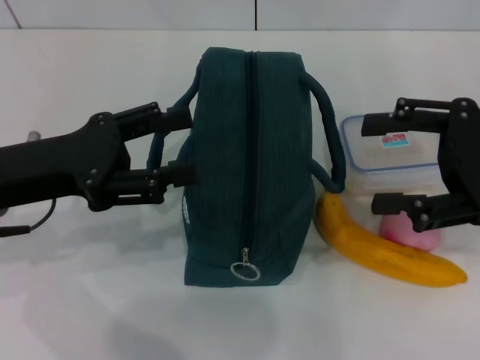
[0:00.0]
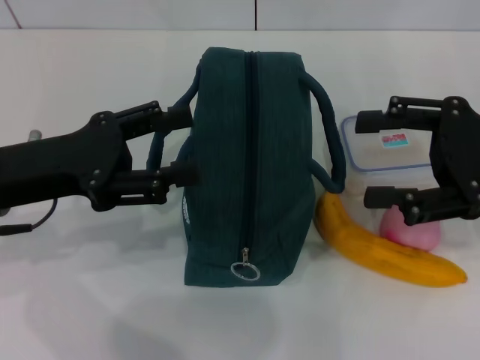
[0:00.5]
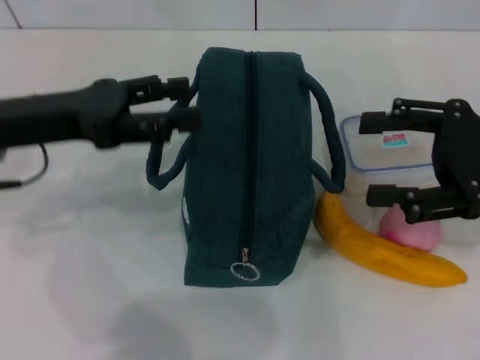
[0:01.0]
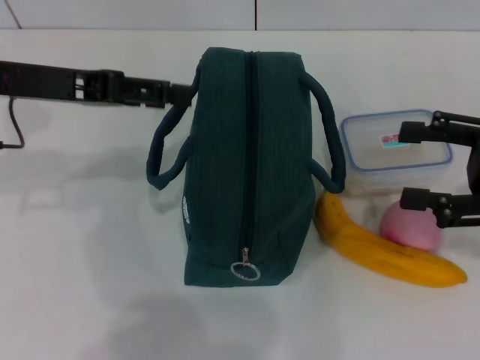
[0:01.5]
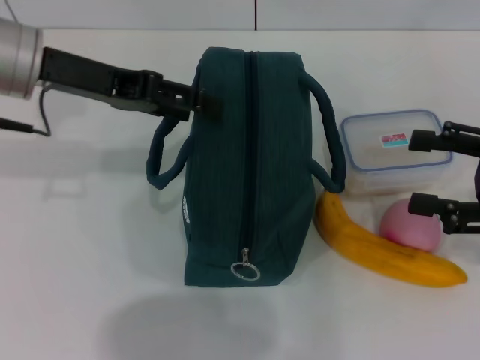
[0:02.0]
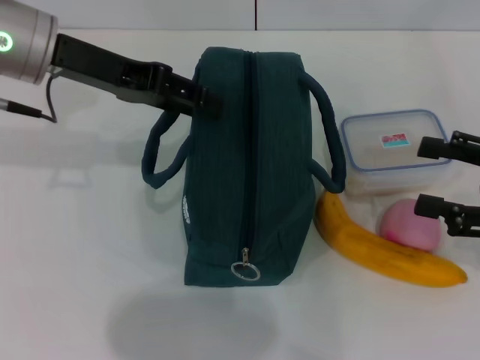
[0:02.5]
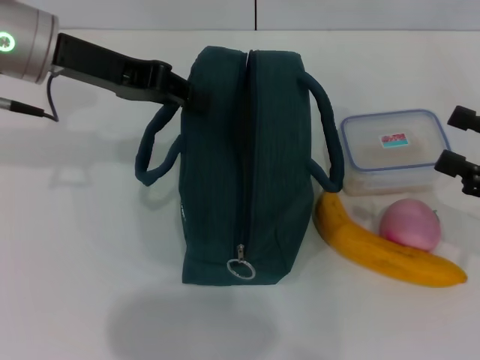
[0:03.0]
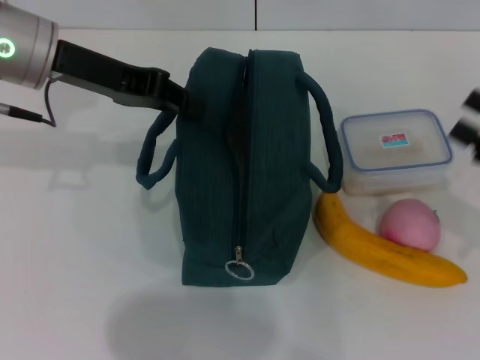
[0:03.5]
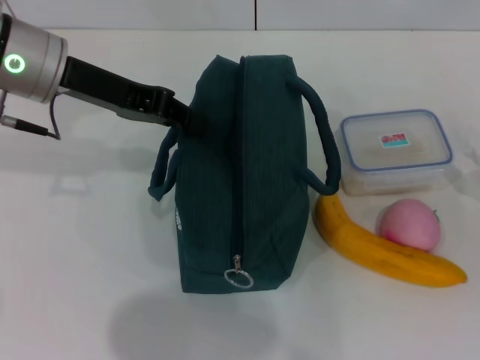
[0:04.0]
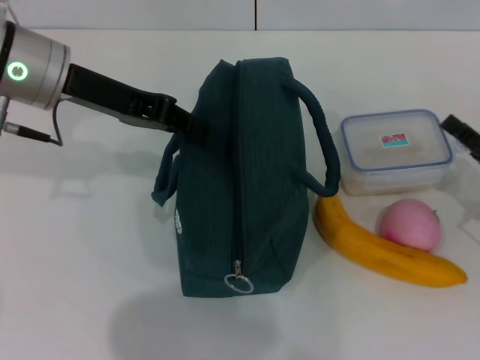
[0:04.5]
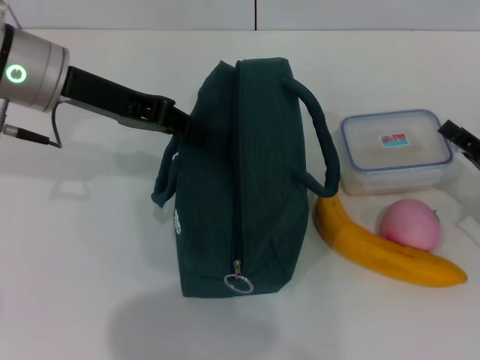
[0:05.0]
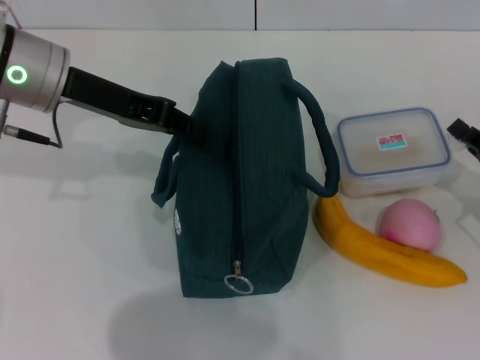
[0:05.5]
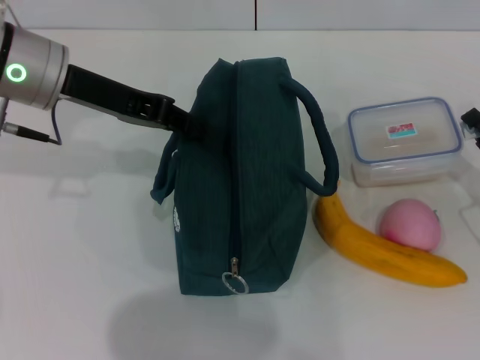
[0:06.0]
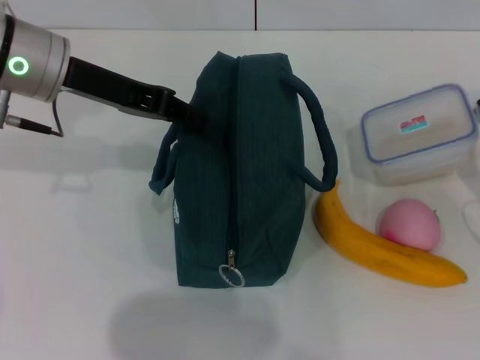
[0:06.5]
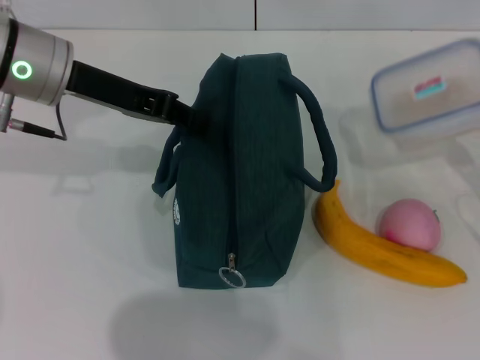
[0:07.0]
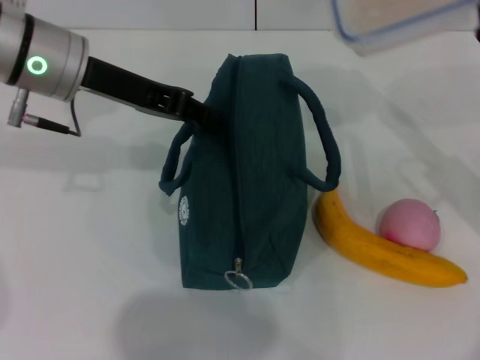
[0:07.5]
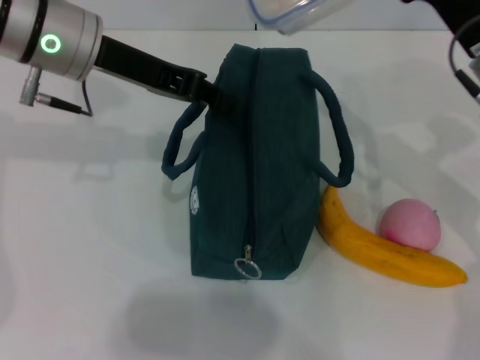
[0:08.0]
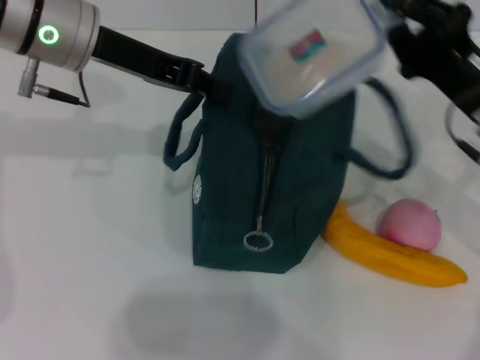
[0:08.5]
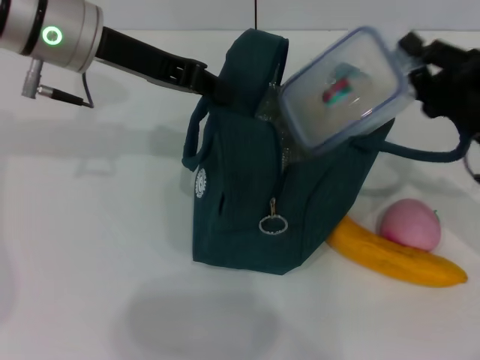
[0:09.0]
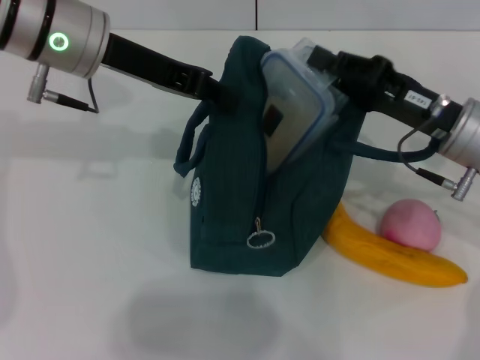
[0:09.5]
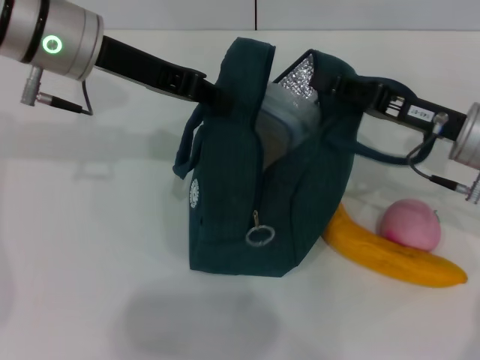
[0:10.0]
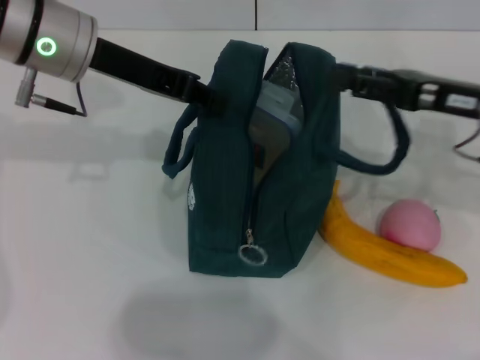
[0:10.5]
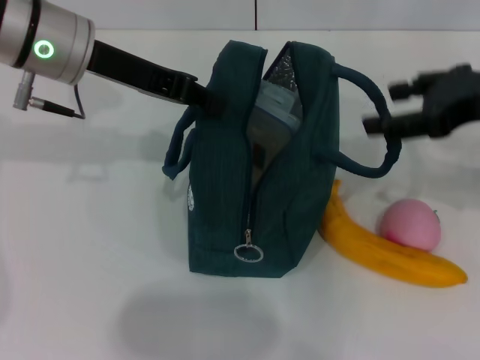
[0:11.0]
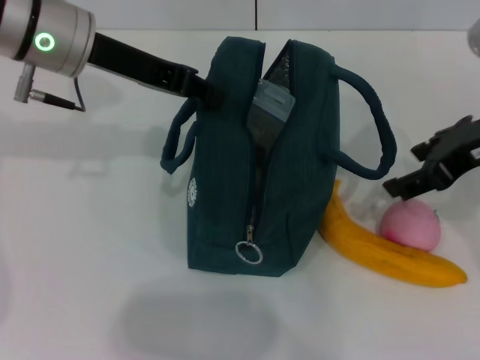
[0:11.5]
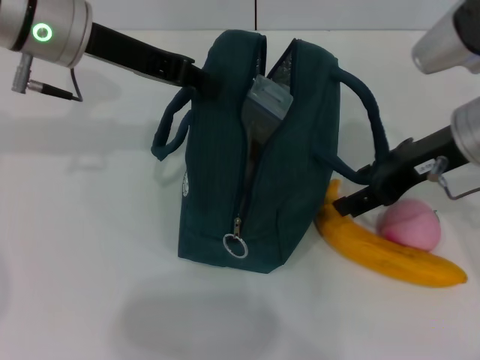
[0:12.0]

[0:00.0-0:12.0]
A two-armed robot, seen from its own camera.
Step, 0:00.0 to 0:03.5: Hold the lunch bag with your left hand.
Step, 0:04.0 to 0:05.5: Pick up the lunch box with your right hand.
Step, 0:06.0 to 0:10.0: Place the lunch box into the lunch bag with your right hand.
0:00.0 to 0:02.0: The left gripper is displaced forward and upward by about 10 cm. The right gripper moves roughly 5 cm.
0:02.0 to 0:04.0: The right gripper moves downward, some 10 cm. The left gripper closes.
0:04.0 to 0:06.0: The right gripper closes.
0:06.0 to 0:08.0: The right gripper goes approximately 20 cm upward, to the left and forward.
0:10.0 to 0:12.0: The right gripper shifts about 10 cm upward, and opens up.

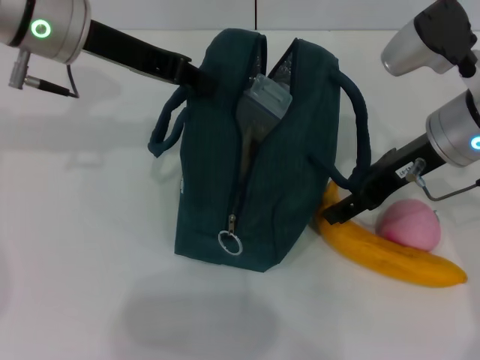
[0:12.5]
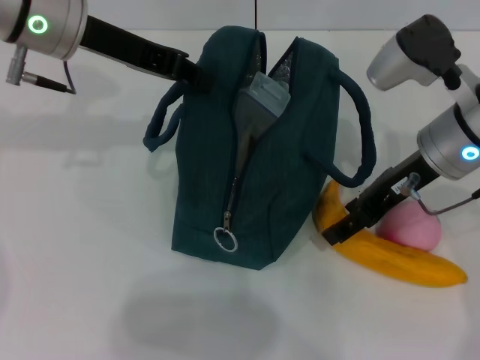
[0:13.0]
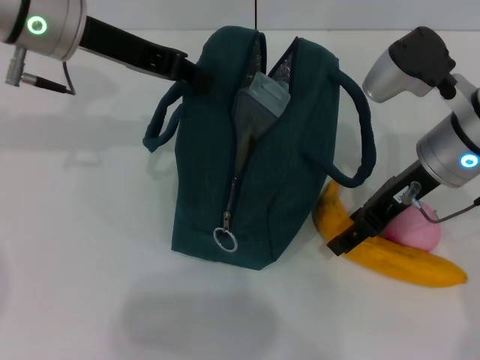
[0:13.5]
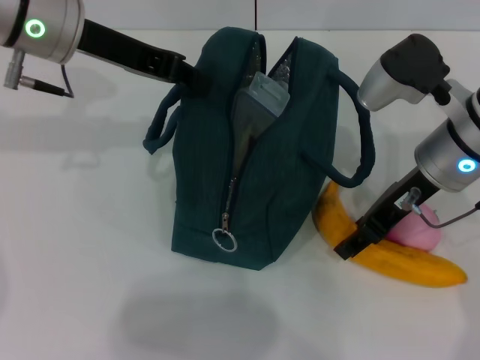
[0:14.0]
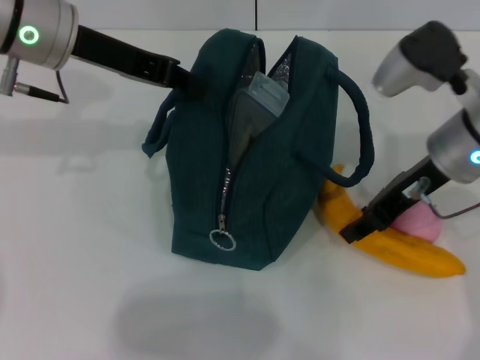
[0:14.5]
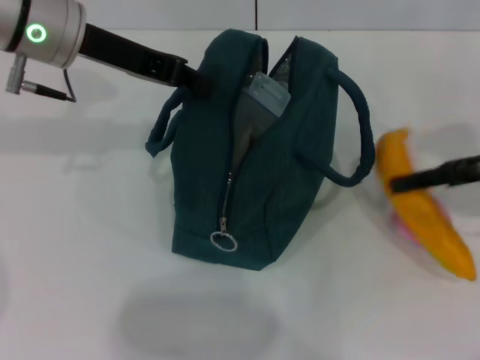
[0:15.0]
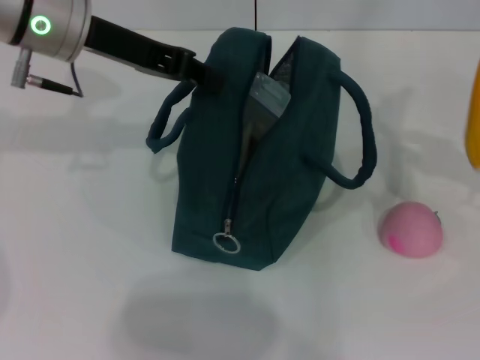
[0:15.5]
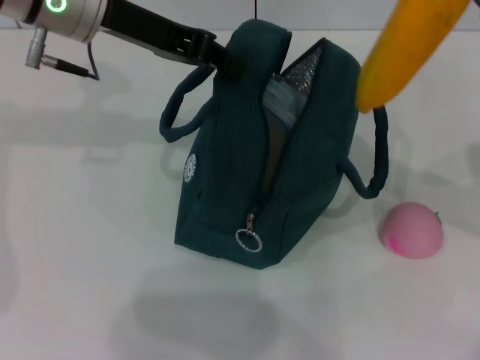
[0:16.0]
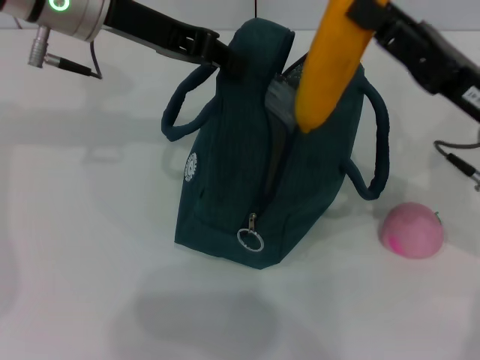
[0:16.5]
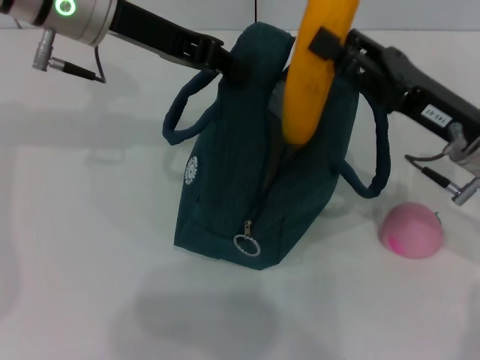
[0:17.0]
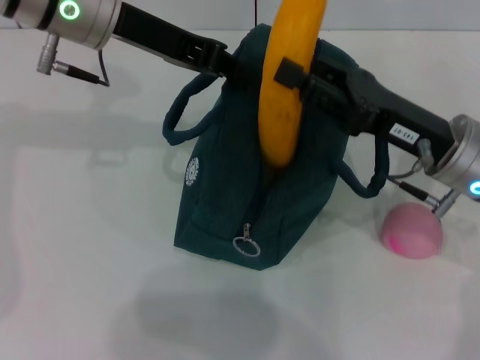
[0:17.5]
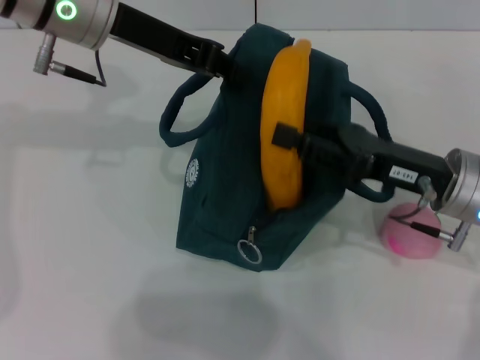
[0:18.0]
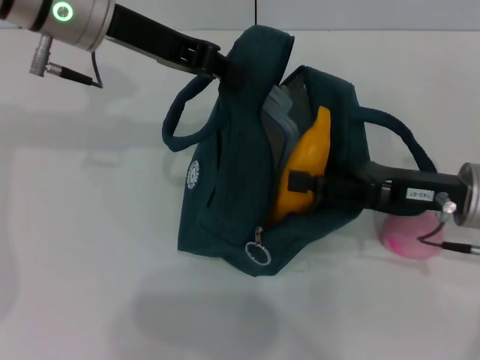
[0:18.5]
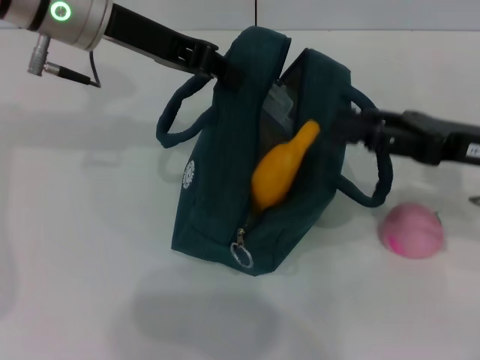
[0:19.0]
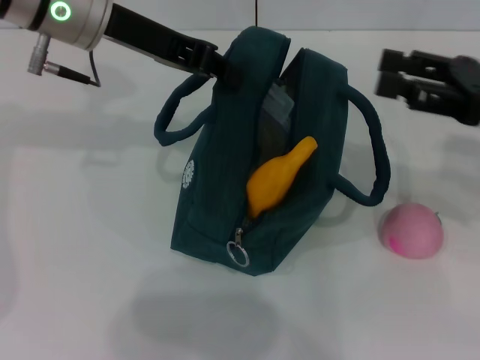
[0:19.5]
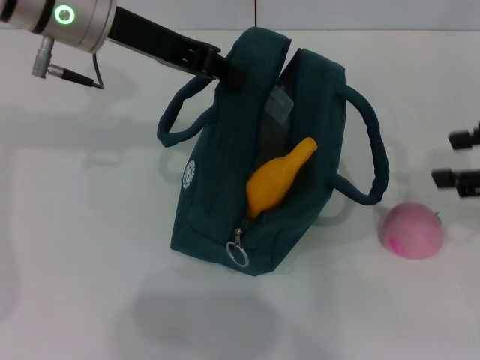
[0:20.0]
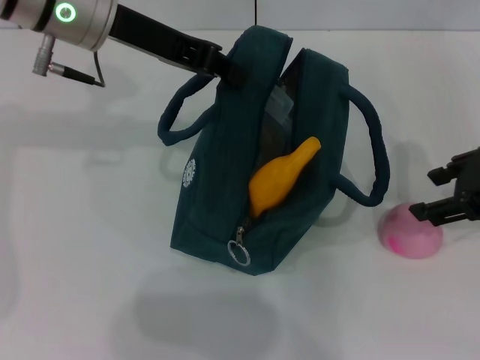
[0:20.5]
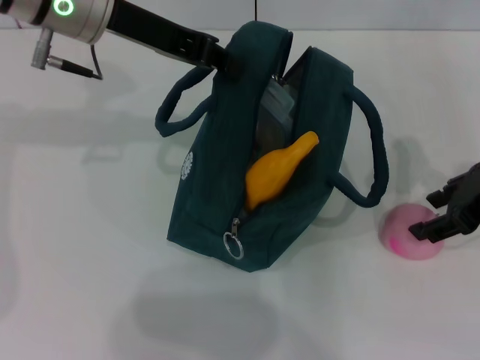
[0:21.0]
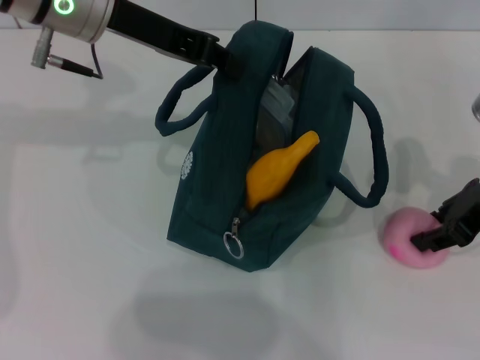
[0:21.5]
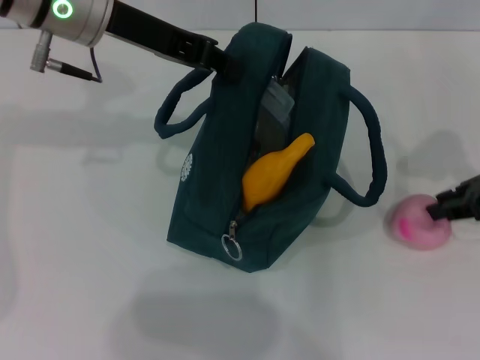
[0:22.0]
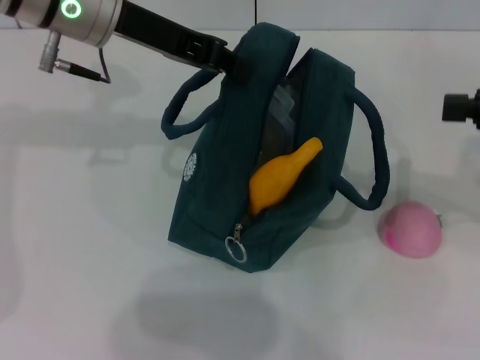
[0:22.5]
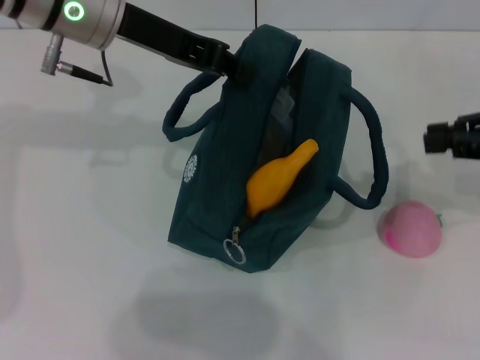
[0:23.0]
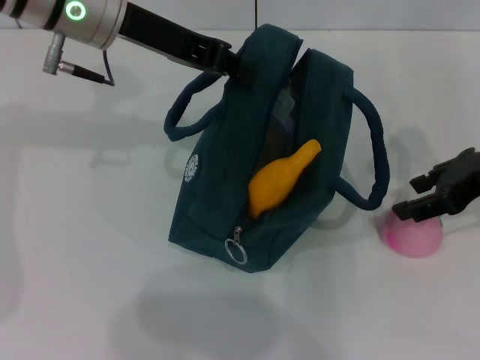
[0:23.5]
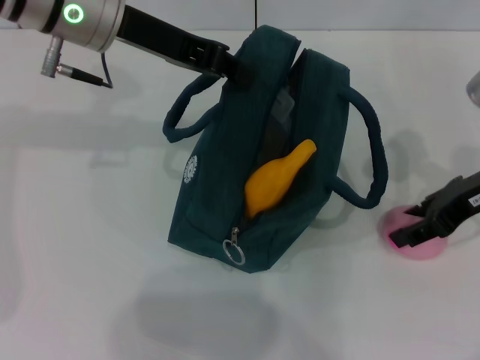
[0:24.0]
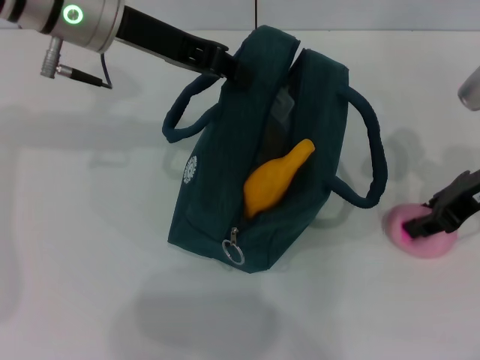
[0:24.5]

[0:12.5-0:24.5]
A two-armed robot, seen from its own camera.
Step, 0:14.5 to 0:18.5: Put the banana into the lunch bag with your right hand.
Step, 0:19.0 to 0:24.0: Grab the peach with your right hand.
0:12.5 to 0:14.5: The right gripper closes up.
0:14.5 to 0:16.5: The right gripper travels to the right and back again, about 20 cm each way.
0:18.5 to 0:20.5: The right gripper heads upward, covering roughly 10 cm.
0:20.5 to 0:22.5: The right gripper shifts some 5 cm to the right, and closes up.
0:22.5 to 0:24.5: The right gripper heads to the left and downward, covering roughly 10 cm, and opens.

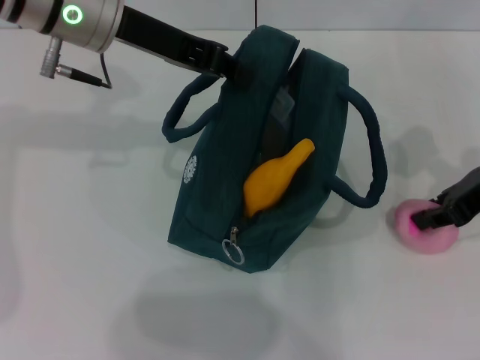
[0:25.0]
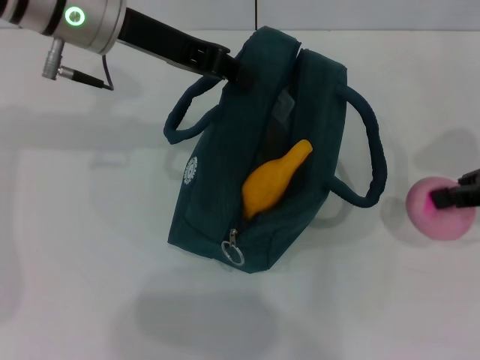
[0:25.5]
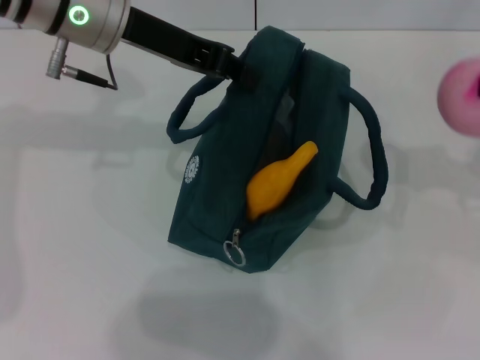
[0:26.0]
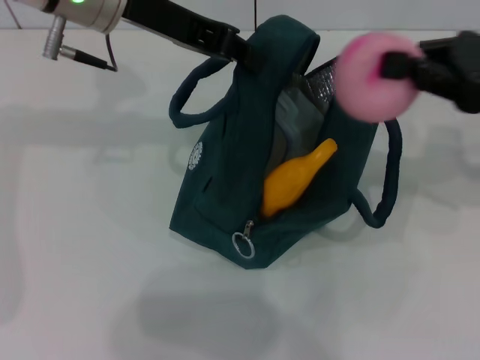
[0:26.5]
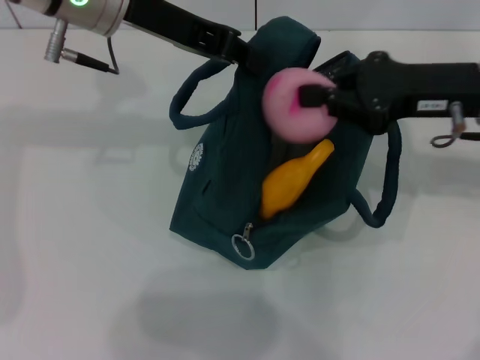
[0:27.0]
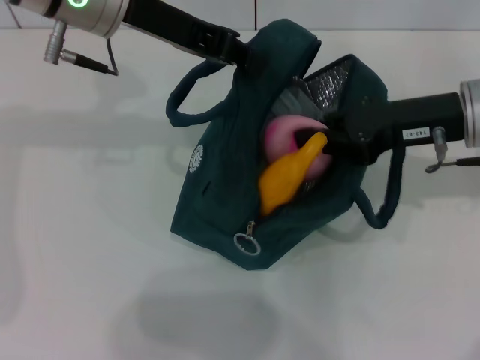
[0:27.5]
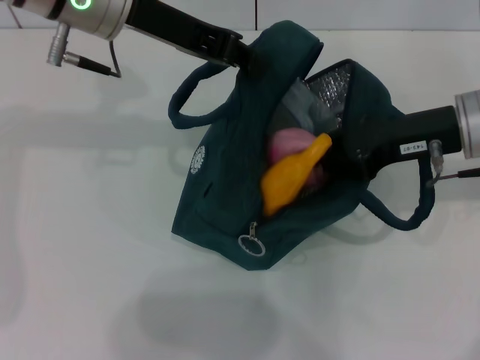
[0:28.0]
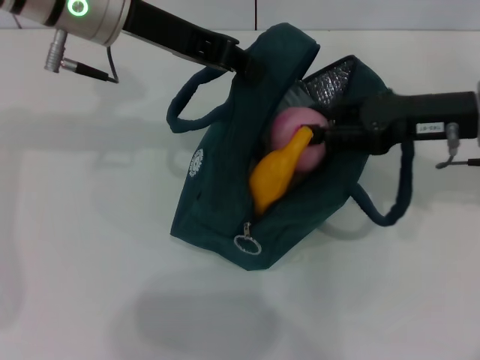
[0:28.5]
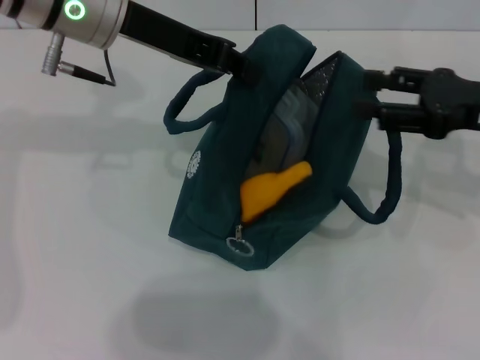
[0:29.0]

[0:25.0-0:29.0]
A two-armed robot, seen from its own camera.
0:25.0 to 0:27.0: The right gripper travels to the right and back again, some 10 cm each way.
0:27.0 to 0:29.0: The right gripper is displaced to the right by some 5 cm, and opens.
